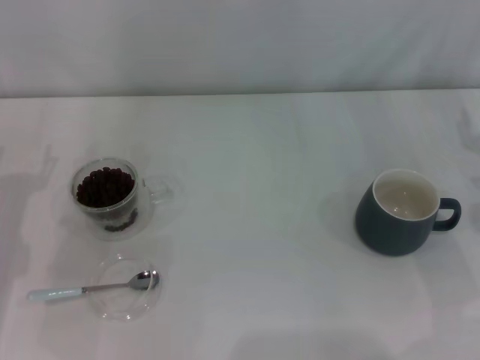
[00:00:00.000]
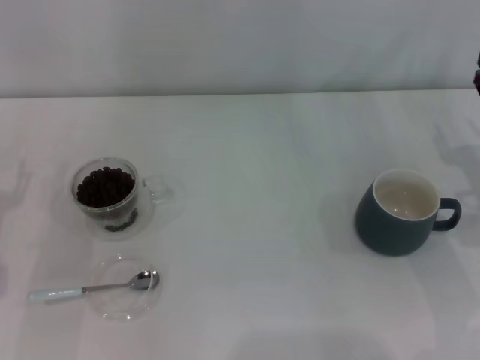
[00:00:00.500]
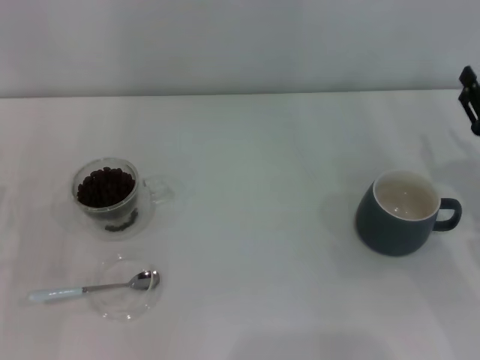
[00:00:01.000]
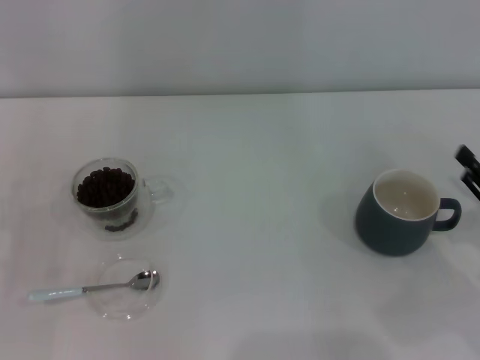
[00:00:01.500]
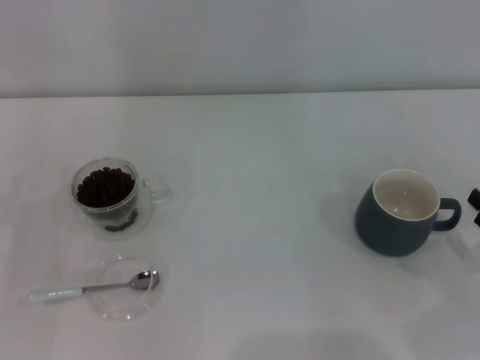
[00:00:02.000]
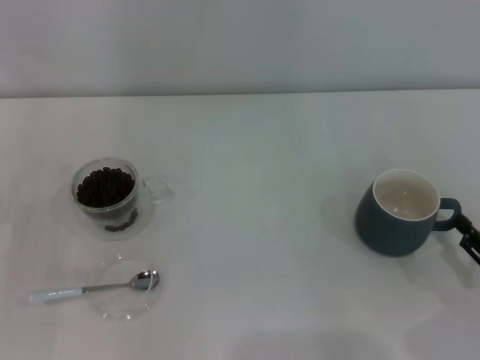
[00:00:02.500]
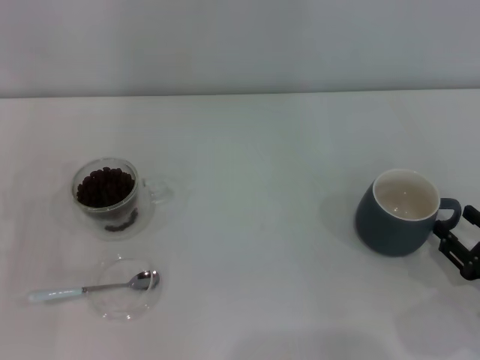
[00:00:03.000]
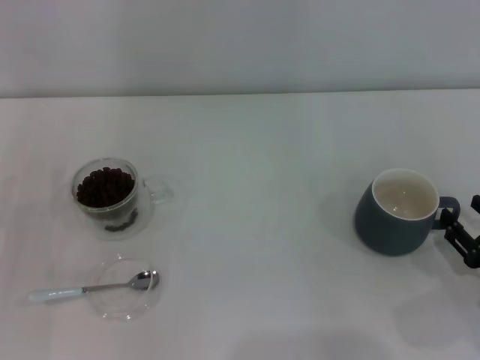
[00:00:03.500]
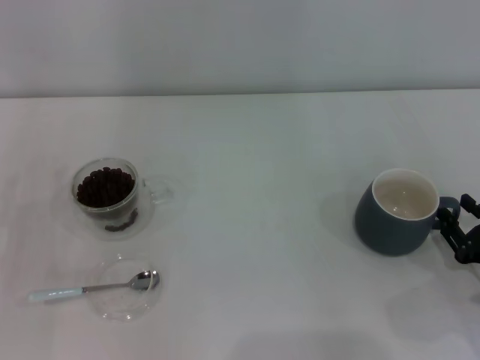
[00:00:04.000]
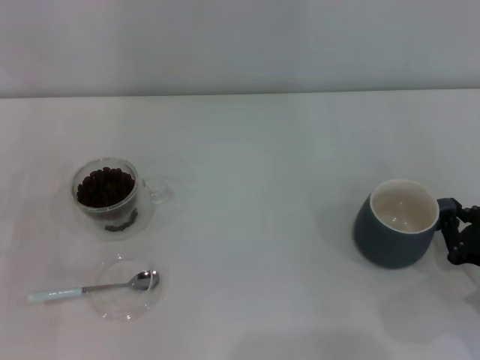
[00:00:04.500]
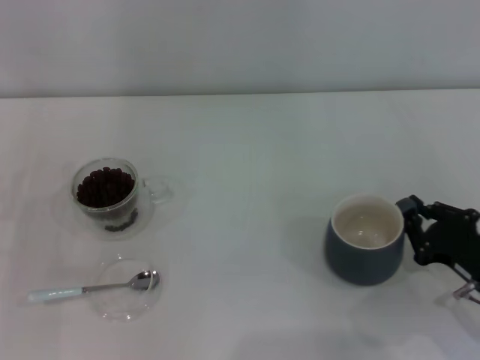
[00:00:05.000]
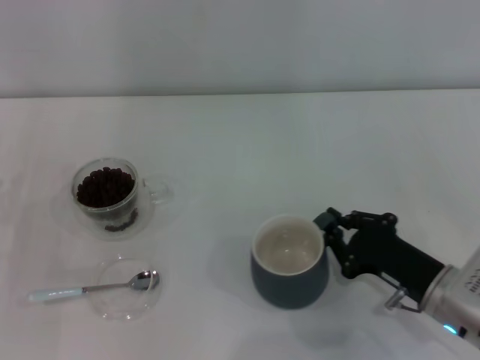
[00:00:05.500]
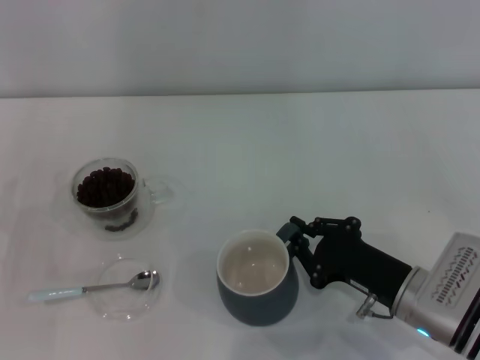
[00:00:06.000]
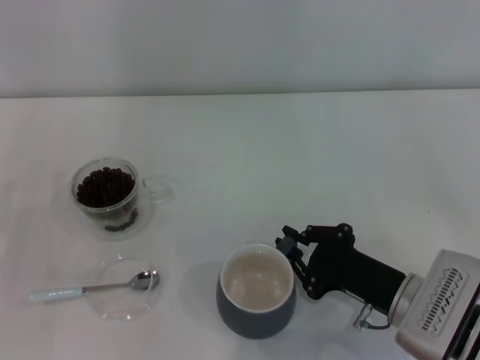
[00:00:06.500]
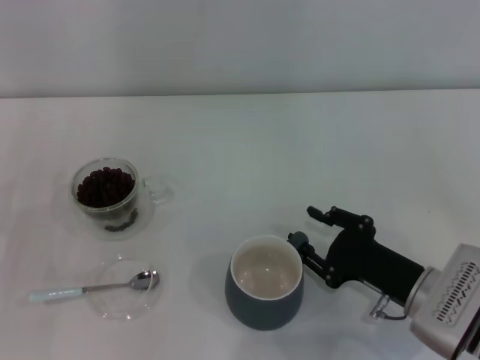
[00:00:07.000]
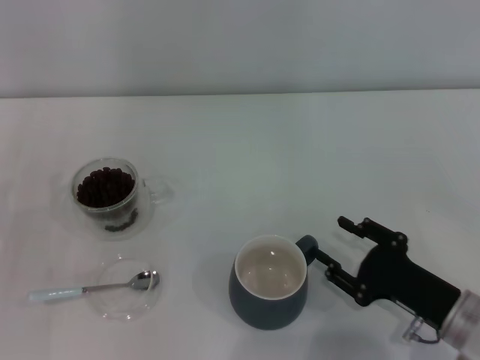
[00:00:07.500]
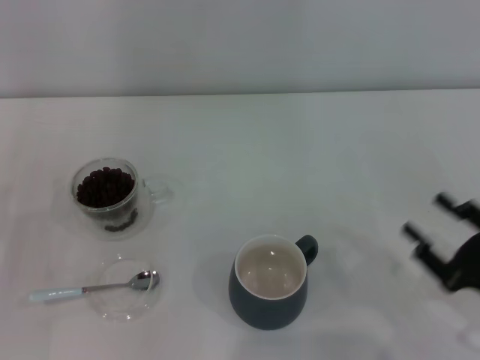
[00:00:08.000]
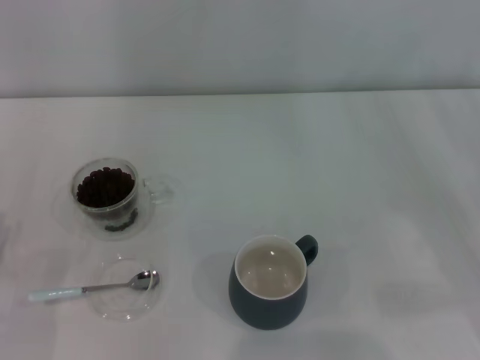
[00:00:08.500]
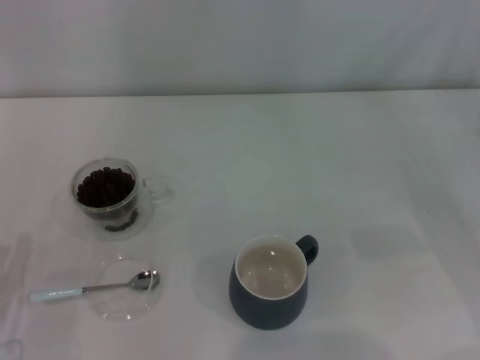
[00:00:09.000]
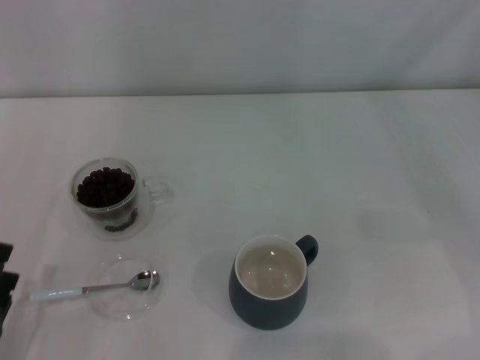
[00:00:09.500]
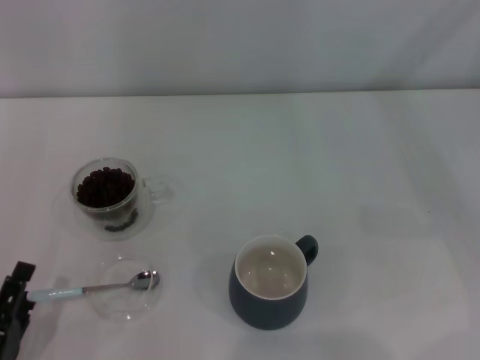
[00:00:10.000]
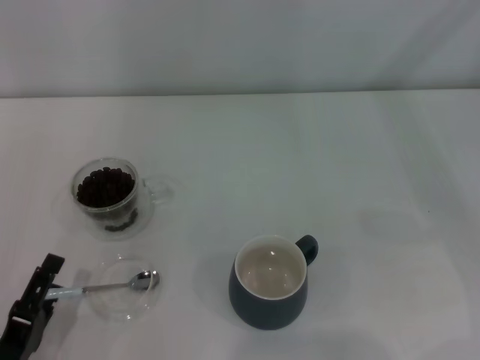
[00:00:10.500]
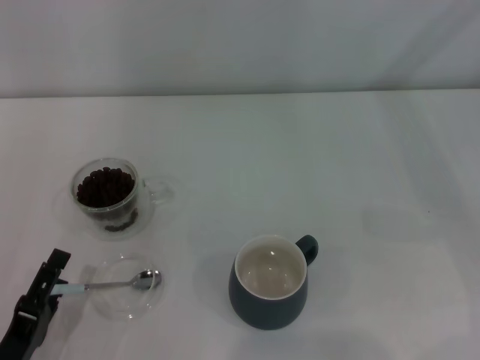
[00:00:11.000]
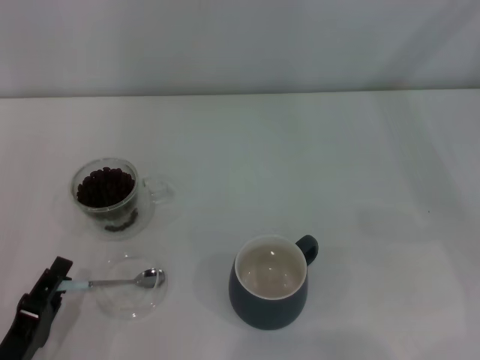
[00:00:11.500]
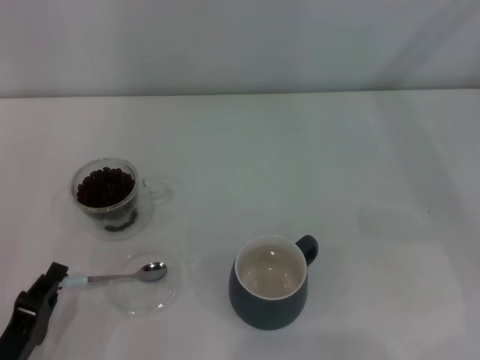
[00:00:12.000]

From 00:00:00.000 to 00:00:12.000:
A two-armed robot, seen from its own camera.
Task of the whole recording: Use a blue spoon to take out the coffee beans from the glass and pour them into the gray cup.
Step, from 00:00:00.000 to 00:00:07.500: Move the cup to the center of view with the left gripper.
From 00:00:02.000 to 00:00:04.000: There are only small adjustments of the grippers.
From 00:00:04.000 to 00:00:06.000: The right gripper goes about 15 cm to the left, and closes its fingers.
From 00:00:06.000 to 00:00:08.000: The right gripper shifts roughly 10 cm to the right and backward, and opens.
From 00:00:08.000 to 00:00:10.000: The left gripper travels backward and to the right by about 15 cm, while the right gripper moves forward, to the right and upward, roughly 20 cm.
From 00:00:10.000 to 00:00:12.000: The left gripper closes its fingers.

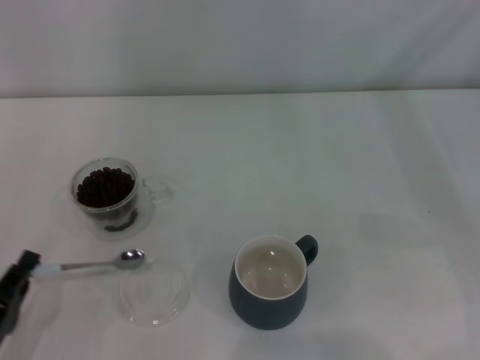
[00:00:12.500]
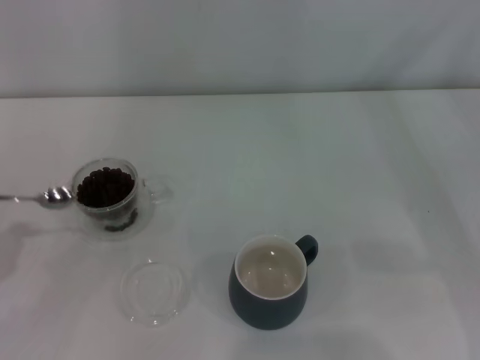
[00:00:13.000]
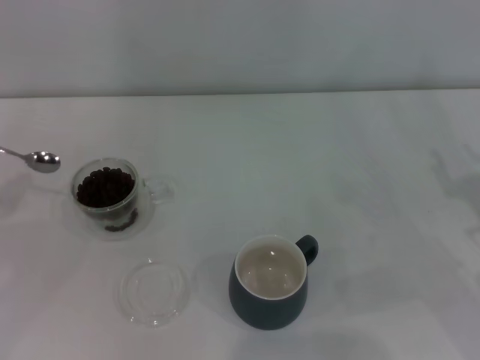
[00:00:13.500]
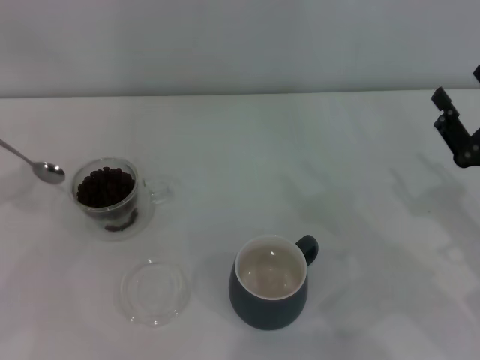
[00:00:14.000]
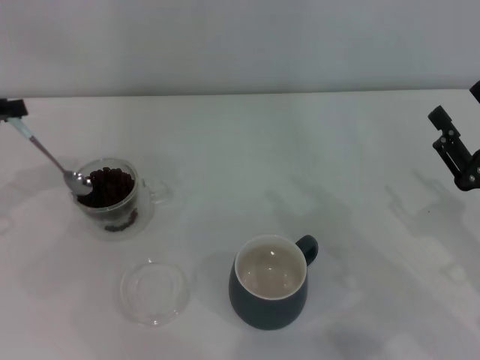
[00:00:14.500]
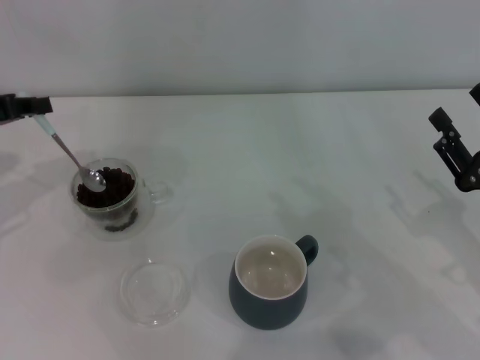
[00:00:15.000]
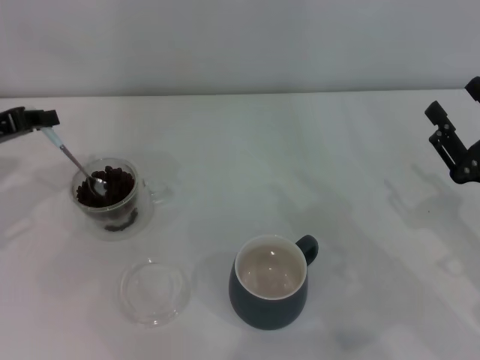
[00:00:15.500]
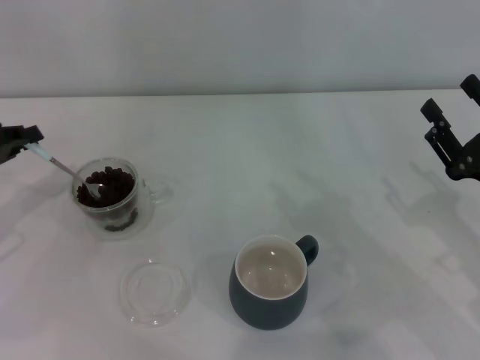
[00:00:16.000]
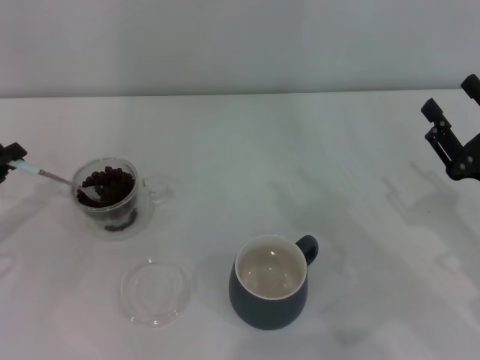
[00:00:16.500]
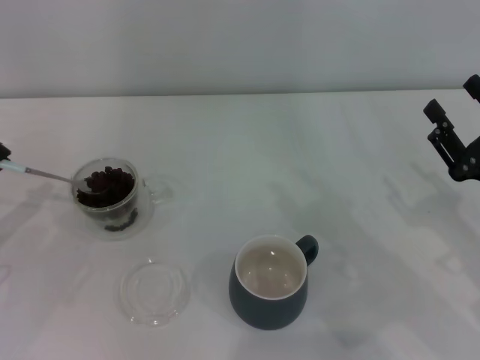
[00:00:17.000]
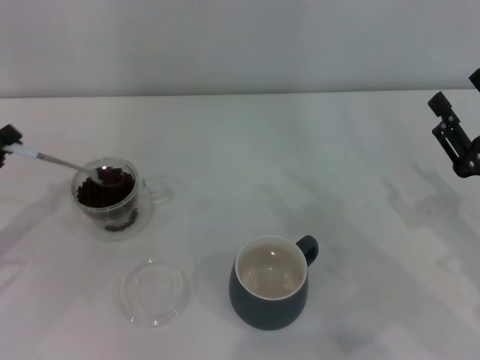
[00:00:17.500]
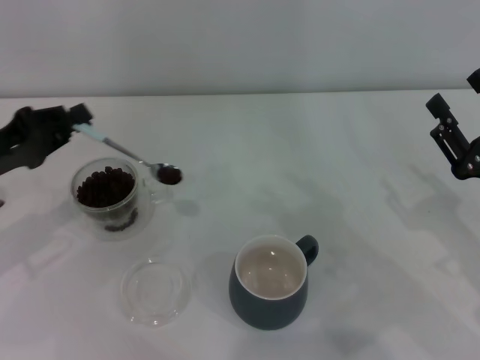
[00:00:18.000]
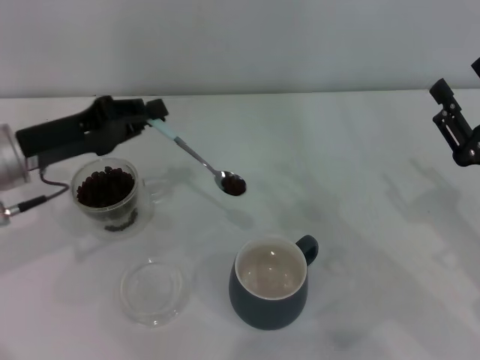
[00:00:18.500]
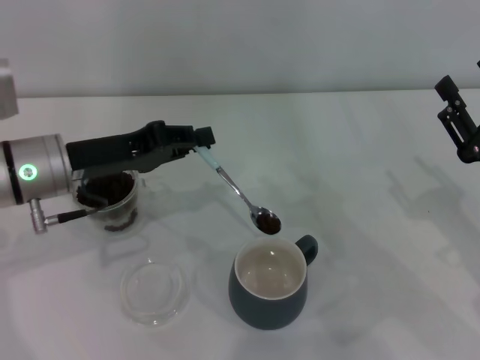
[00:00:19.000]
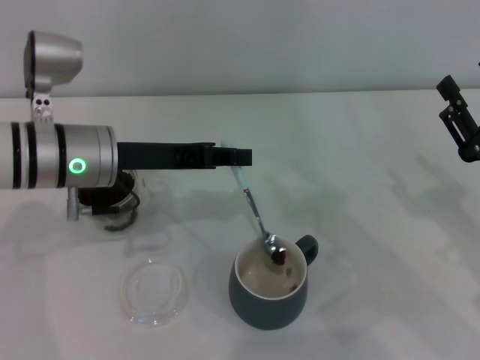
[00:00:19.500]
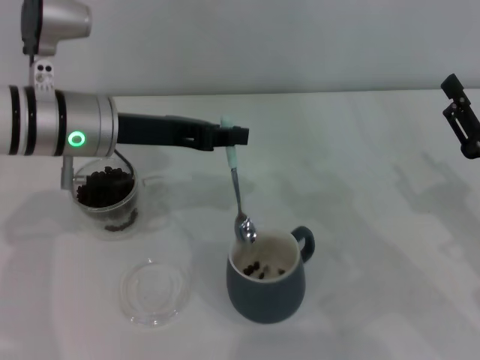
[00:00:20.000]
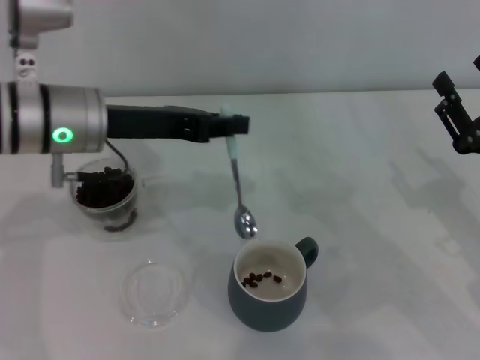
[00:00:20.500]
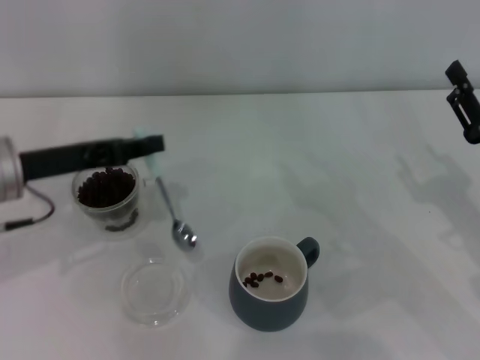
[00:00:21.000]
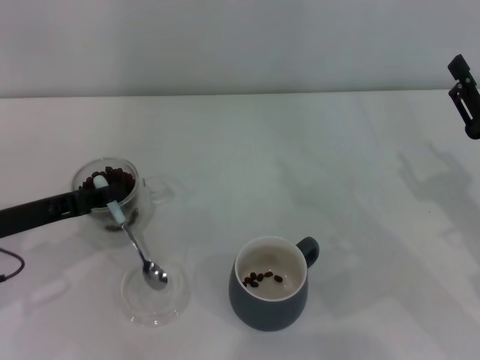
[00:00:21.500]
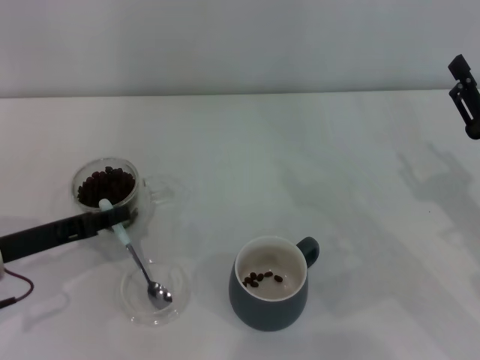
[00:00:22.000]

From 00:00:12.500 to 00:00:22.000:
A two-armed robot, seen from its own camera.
Task of the whole recording: Use a blue spoon to take out the coffee beans from the glass and pour them into the gray cup.
Step, from 00:00:13.000 to 00:00:20.000: Scoop a spoonful of beans into the cup with the right gripper.
From 00:00:12.500 to 00:00:14.500: The right gripper shifts some 10 cm to the left and backward; the left gripper heads forward, upward and to the left, covering about 30 cm.
From 00:00:14.500 to 00:00:16.500: The left gripper heads downward, covering roughly 10 cm.
From 00:00:16.500 to 00:00:18.000: The left gripper ends up roughly 5 cm from where it was.
From 00:00:18.000 to 00:00:20.000: The left gripper shifts about 15 cm to the right.
From 00:00:20.000 to 00:00:22.000: The left gripper goes about 15 cm to the left, downward and backward.

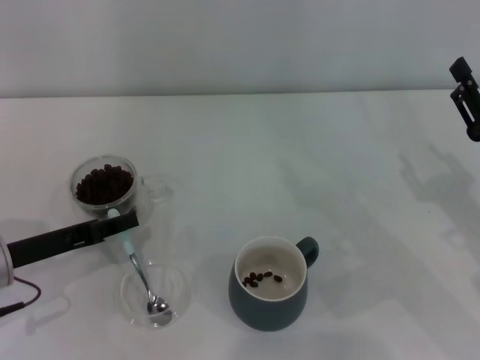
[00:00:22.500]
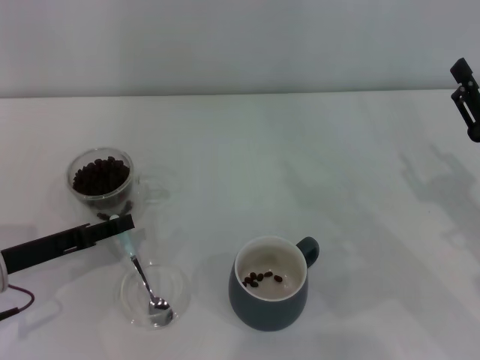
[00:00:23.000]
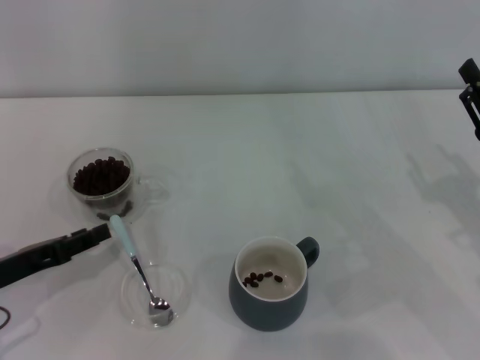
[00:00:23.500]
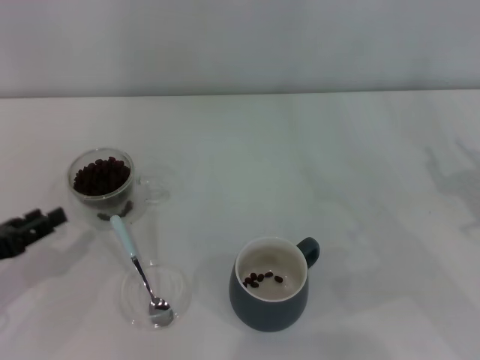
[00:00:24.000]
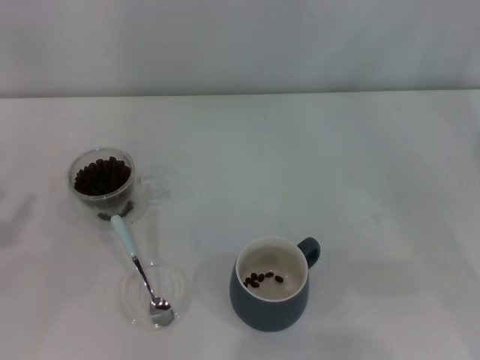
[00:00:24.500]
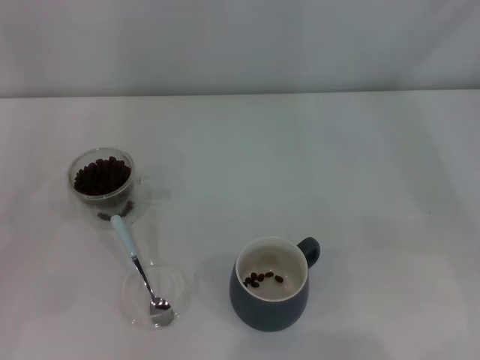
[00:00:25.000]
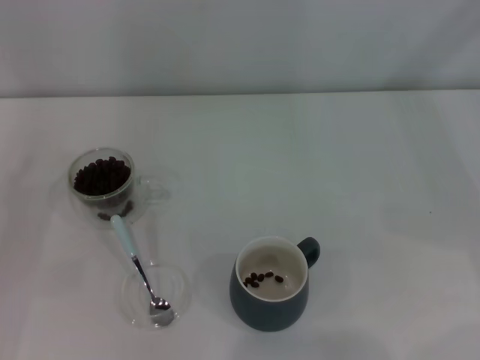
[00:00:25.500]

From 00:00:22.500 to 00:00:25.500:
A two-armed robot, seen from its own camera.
Task of the whole recording: Use a blue spoon to take out the coffee beans from the glass and pour them into the gray cup.
From 00:00:22.500 to 00:00:24.000: The left gripper goes approximately 5 cm to the left, and opens its fingers.
From 00:00:24.000 to 00:00:25.500: The left gripper goes some 10 cm to the left.
